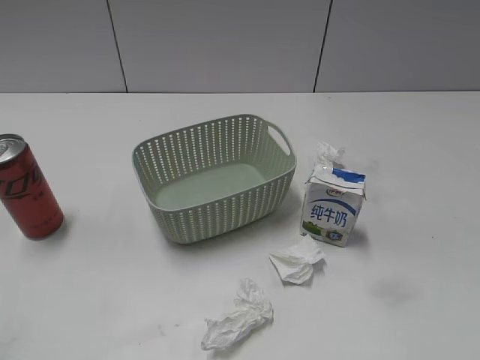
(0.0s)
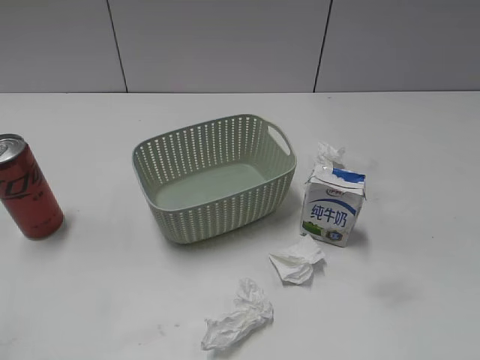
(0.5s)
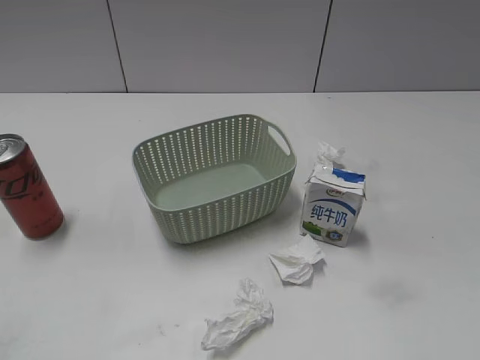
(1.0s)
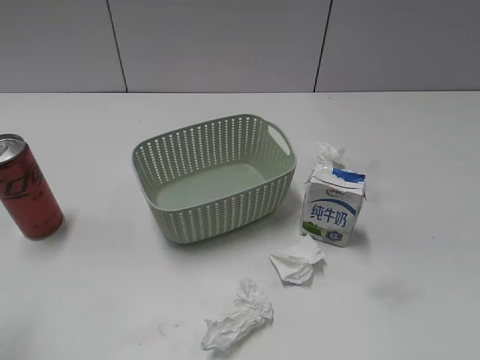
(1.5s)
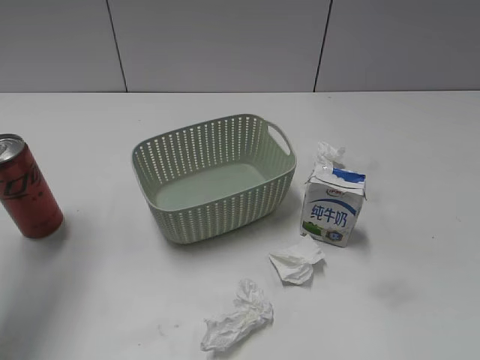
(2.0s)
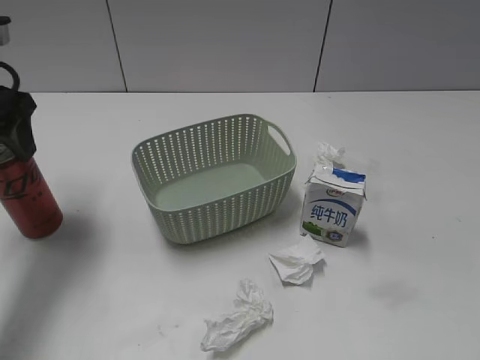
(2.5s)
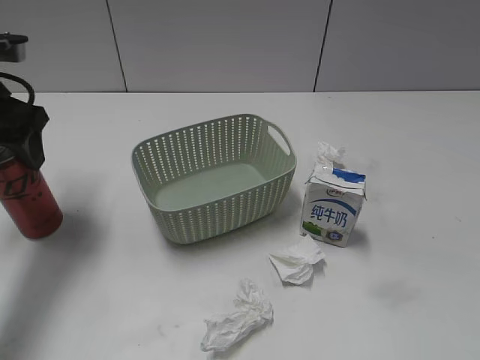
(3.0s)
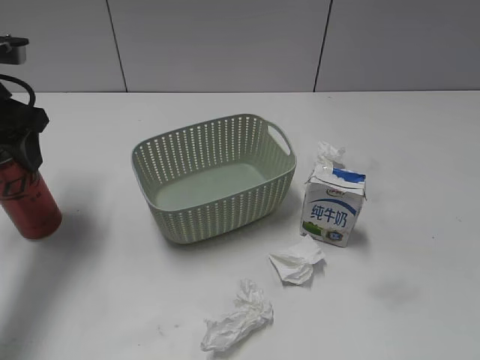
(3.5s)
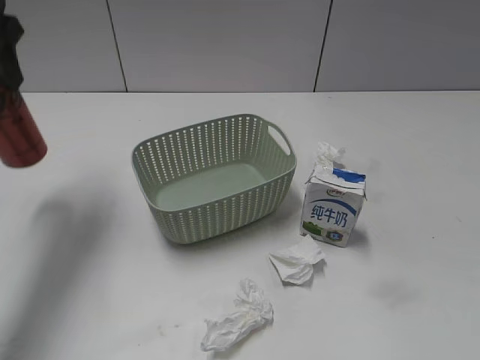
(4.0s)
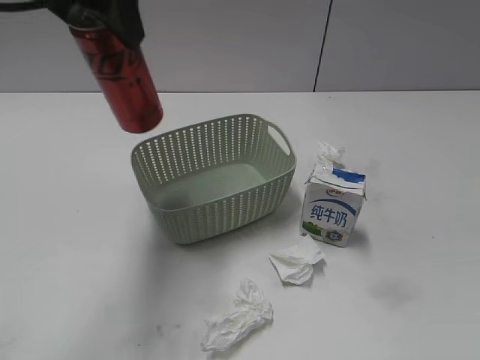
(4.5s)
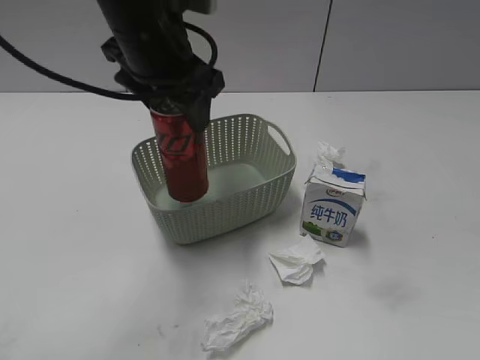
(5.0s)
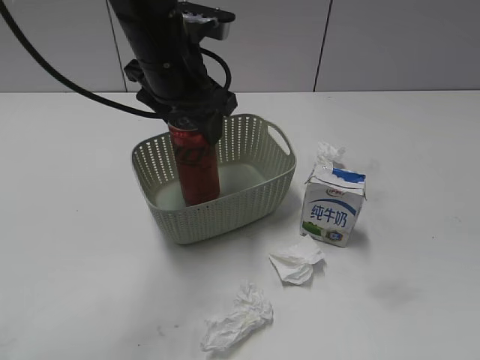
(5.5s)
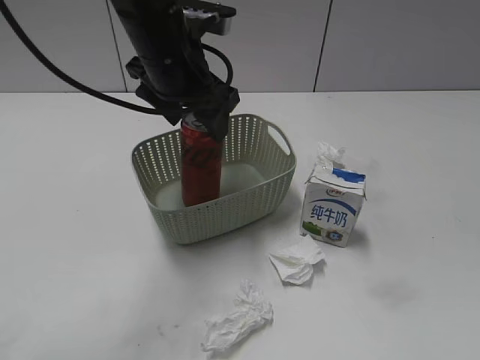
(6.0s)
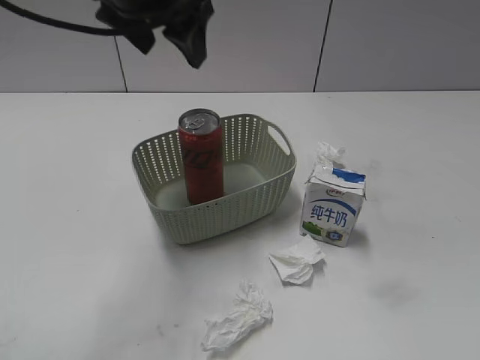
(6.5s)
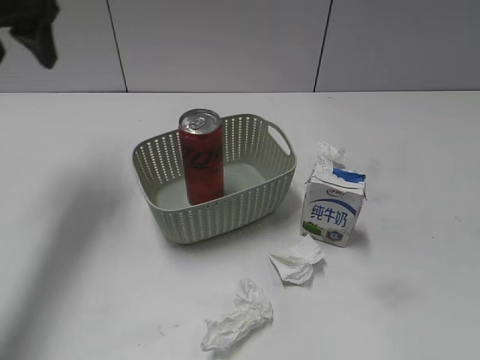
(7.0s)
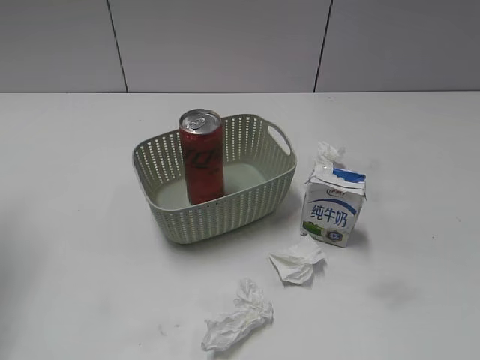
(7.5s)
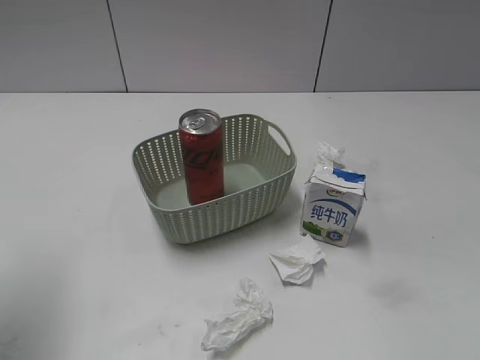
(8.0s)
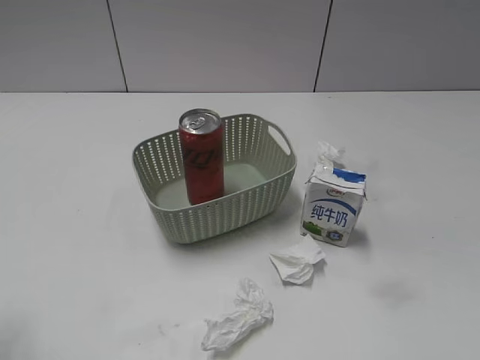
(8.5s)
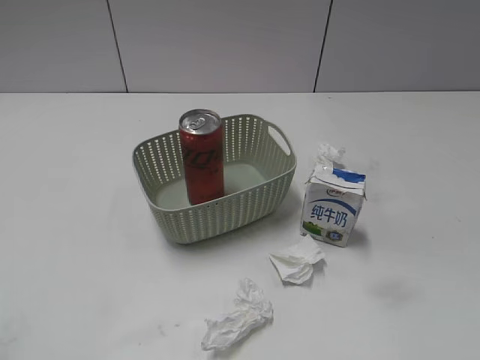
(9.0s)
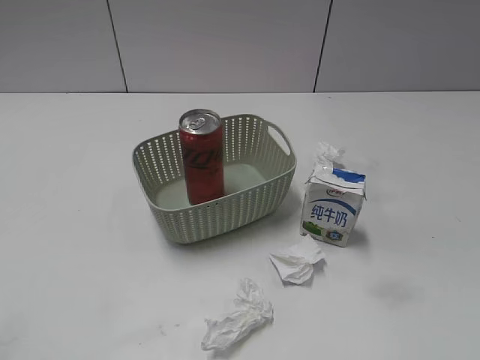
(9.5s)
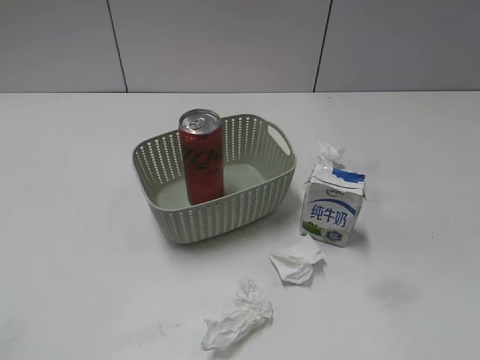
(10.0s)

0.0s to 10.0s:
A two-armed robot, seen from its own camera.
Step, 2.5s to 3.0s: Grasp the cola can with left gripper.
Step, 3.5s to 6.0s: Place the cola can in the basket with left gripper.
2.0s to 4.0s: The left gripper shifts some 10 cm forward, reaches about 10 cm downward, then returns, and closes its fingers.
4.0s to 6.0s: The left gripper goes some 20 cm to the right, and opens.
6.0s to 8.0s: The left gripper shifts roughly 30 cm to the left and backward, and closes up.
8.0s to 10.0s: The left gripper moves backward, roughly 20 cm.
